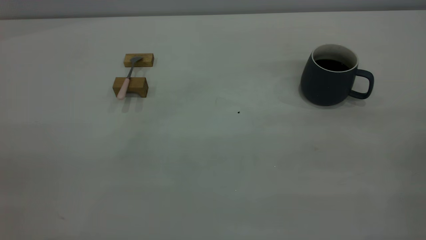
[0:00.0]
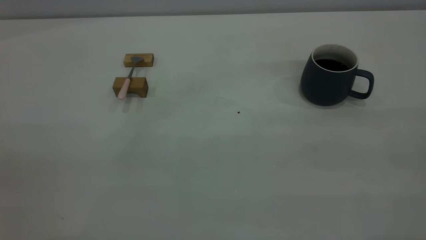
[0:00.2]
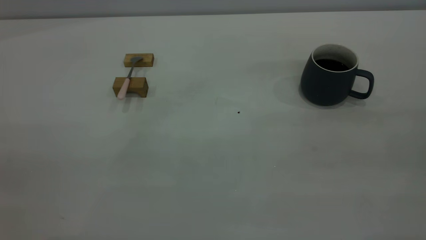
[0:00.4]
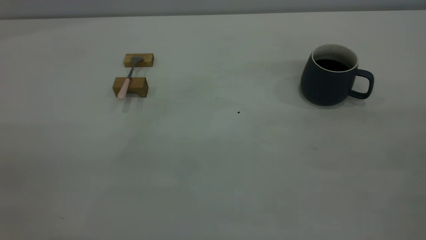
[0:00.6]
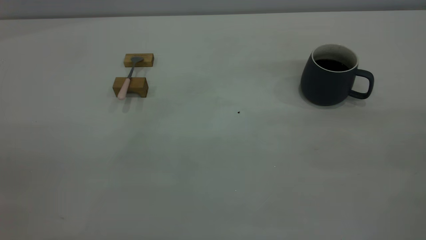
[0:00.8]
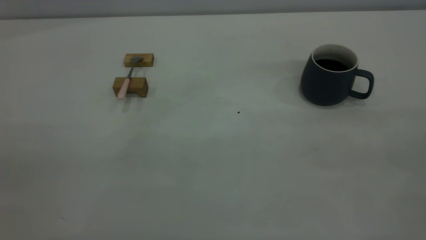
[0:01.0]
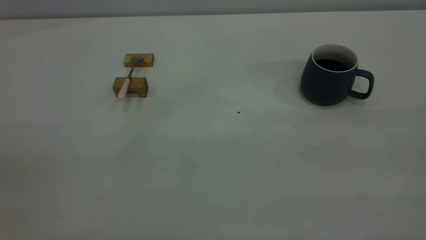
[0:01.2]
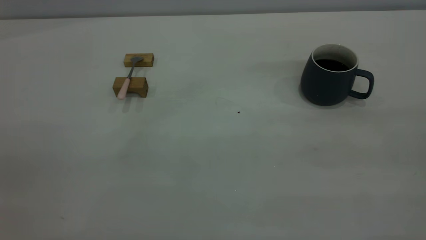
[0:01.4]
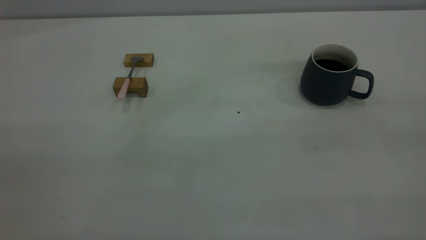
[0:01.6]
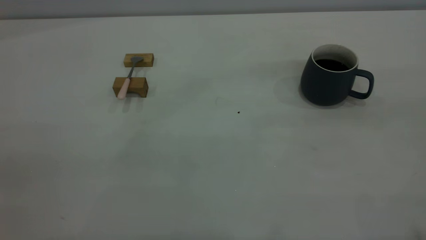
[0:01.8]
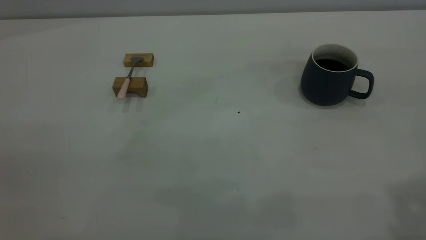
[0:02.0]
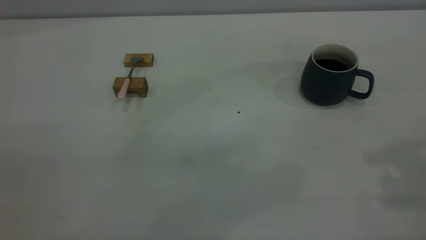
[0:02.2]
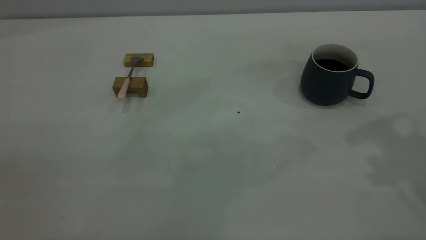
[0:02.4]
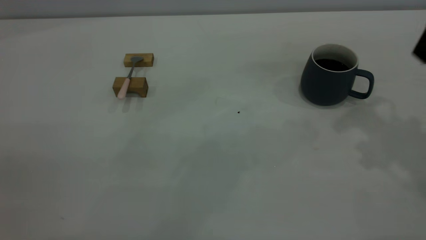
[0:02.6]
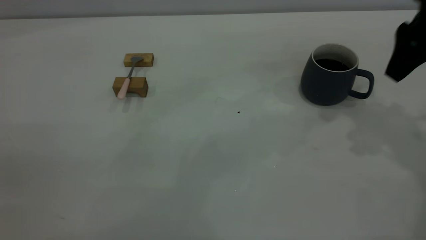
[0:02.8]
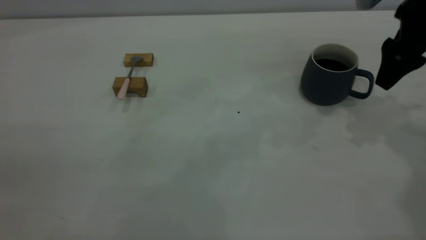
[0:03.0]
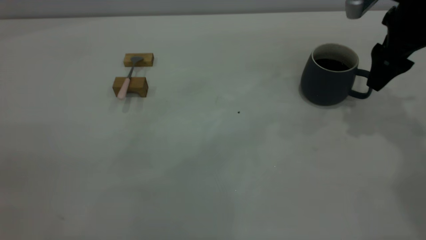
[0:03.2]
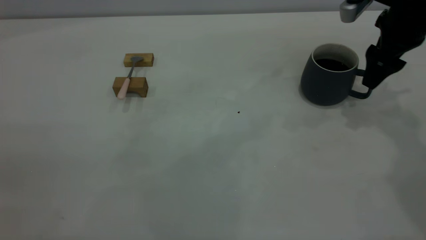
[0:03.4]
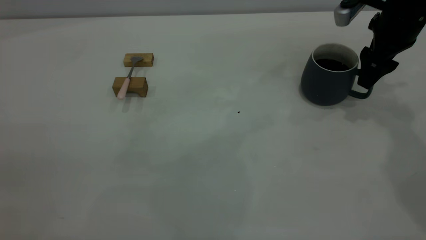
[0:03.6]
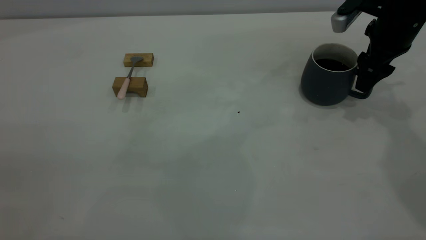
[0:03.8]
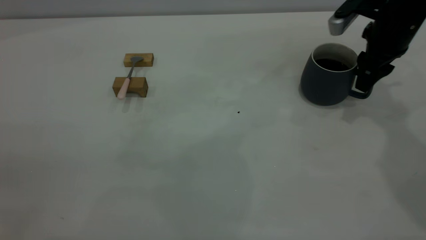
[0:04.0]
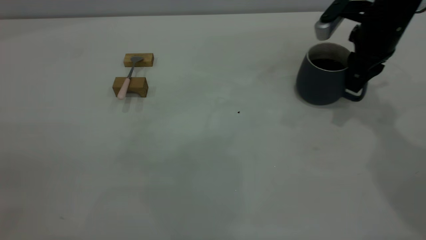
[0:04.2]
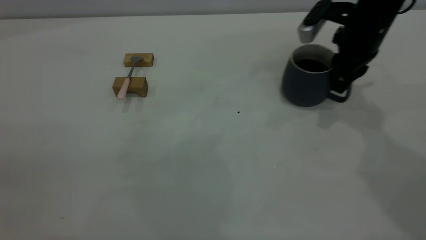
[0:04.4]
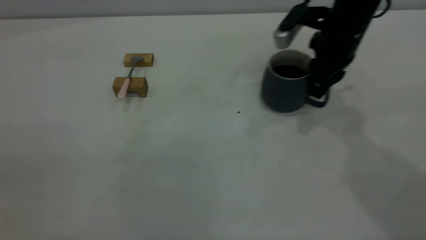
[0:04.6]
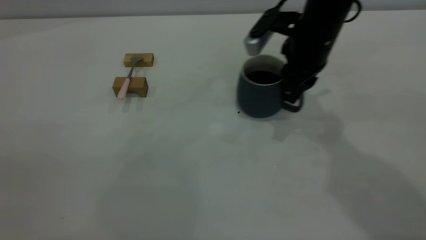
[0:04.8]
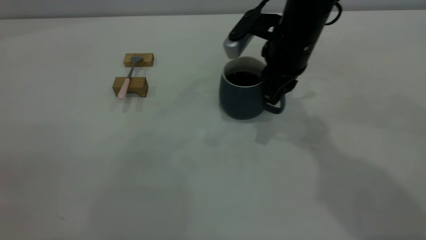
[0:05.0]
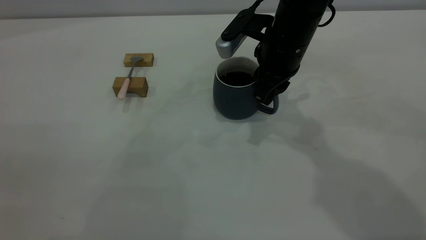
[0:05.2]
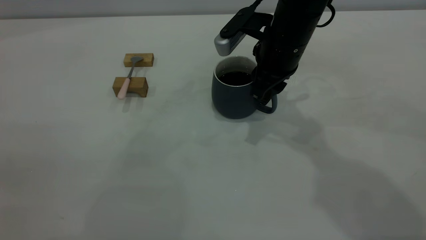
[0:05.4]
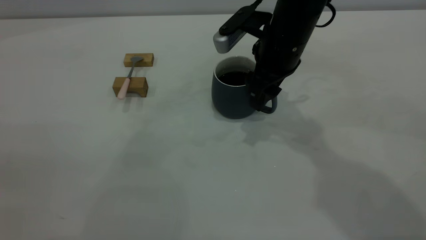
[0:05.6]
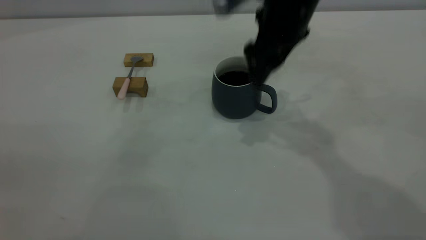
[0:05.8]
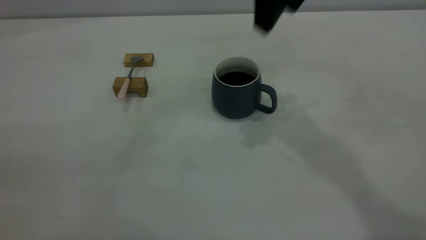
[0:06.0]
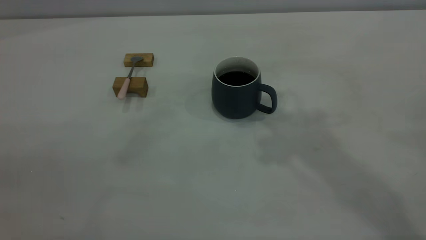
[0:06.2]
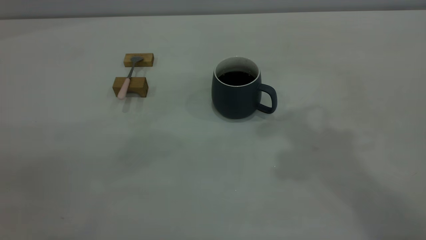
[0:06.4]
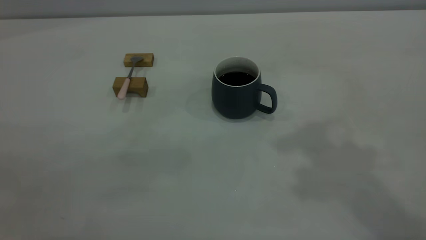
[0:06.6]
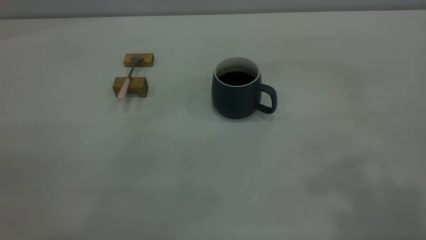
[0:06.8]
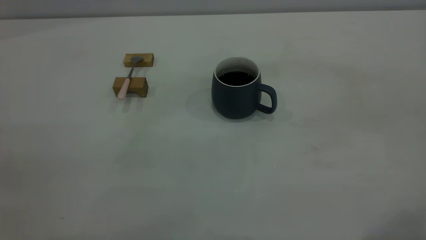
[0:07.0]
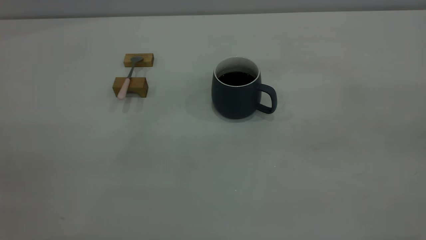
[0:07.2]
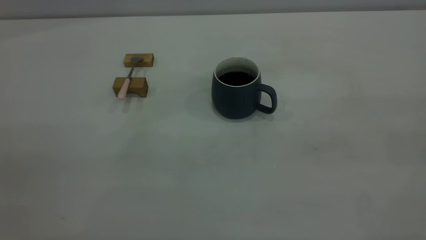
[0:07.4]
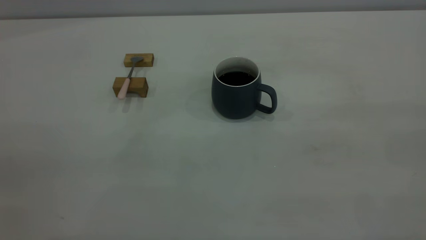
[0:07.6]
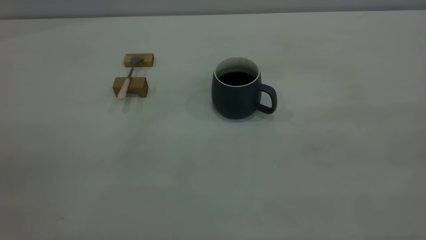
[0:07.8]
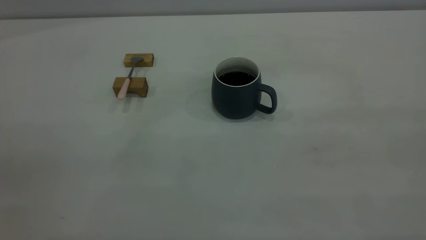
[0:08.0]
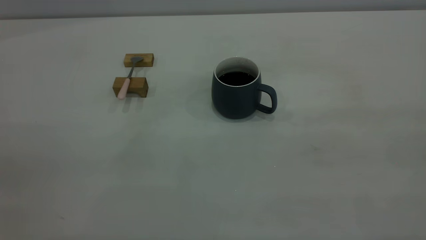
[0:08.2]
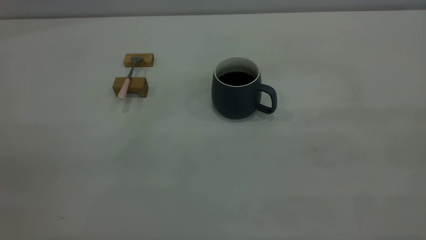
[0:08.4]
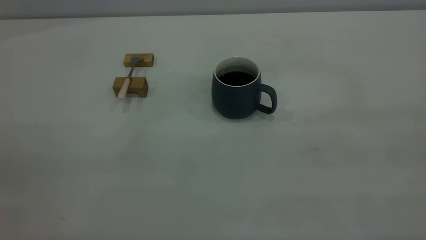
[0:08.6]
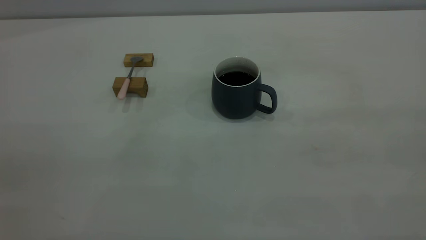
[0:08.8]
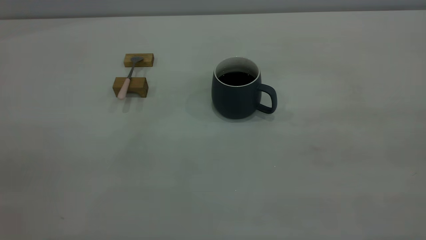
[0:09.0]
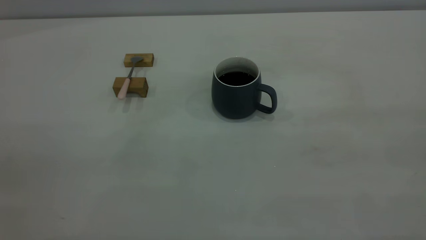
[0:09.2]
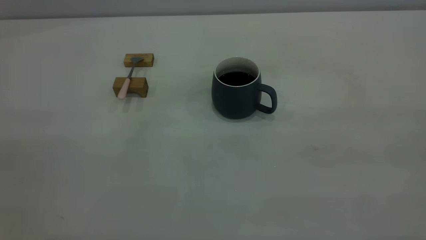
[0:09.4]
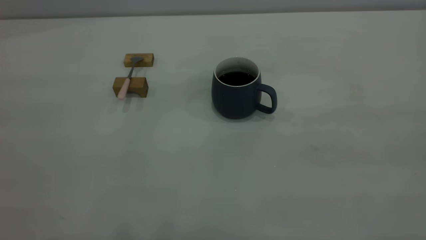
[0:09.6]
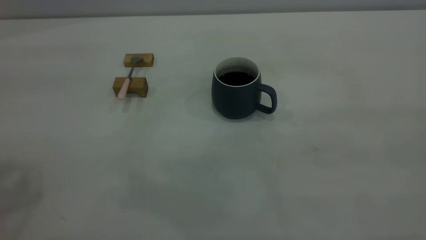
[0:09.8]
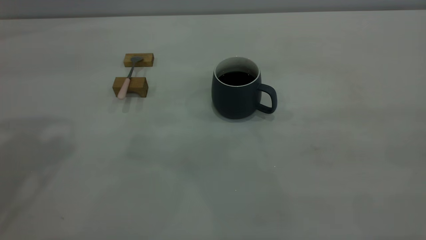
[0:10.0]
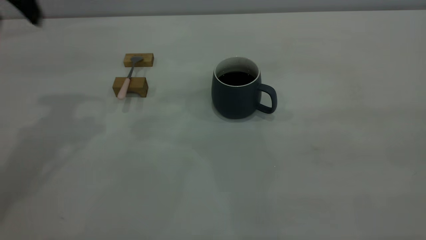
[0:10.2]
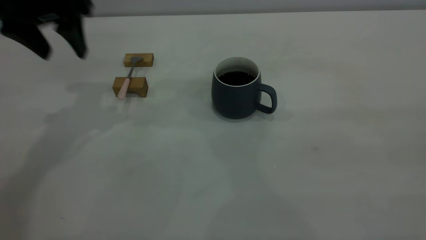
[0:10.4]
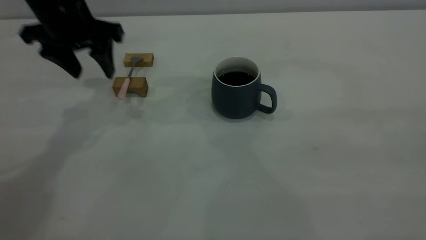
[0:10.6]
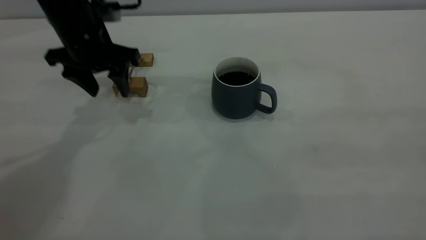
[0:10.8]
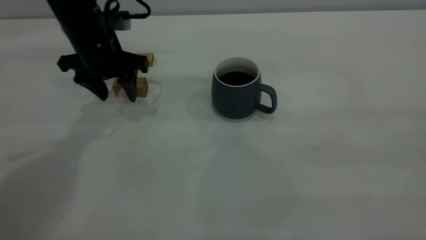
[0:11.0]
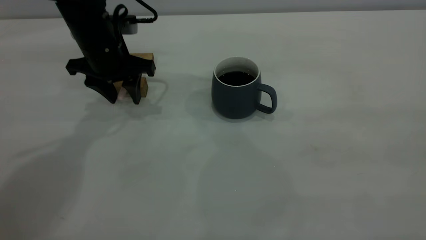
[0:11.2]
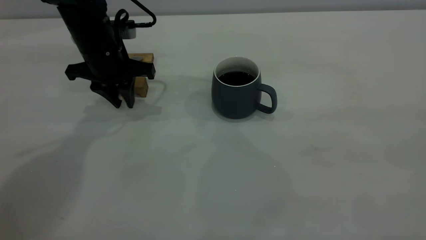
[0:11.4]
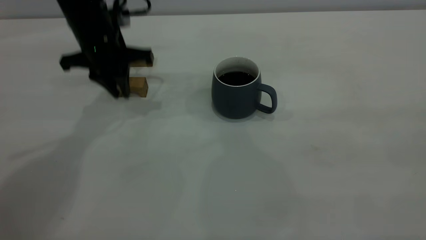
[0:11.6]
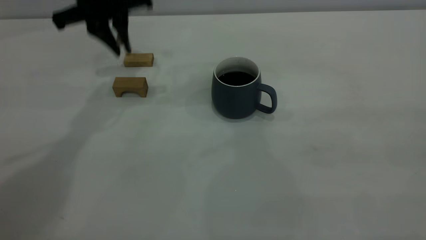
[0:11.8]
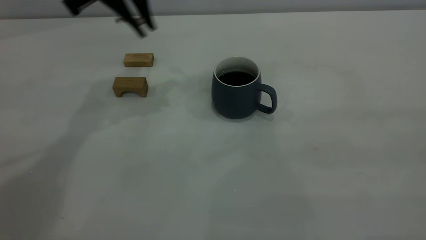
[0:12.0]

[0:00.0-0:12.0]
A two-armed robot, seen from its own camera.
Step, 0:00.0 to 0:05.8: Move the cup with coffee to the center of view.
Step, 0:06.0 to 0:11.6: Pick up the spoon.
0:01.6 to 0:03.0: The right gripper is displaced forward and downward by about 40 cm.
0:03.0 to 0:04.4: The right gripper heads to the left and downward, covering approximately 10 cm, and closes up.
0:04.4 to 0:06.0: The right gripper travels upward and to the left by about 20 cm, and opens.
0:06.0 to 0:07.6: The right gripper shifts some 40 cm backward and to the right.
0:09.0 to 0:10.4: The left gripper heads forward, covering roughly 40 cm.
0:10.4 to 0:12.0: The left gripper moves to the right, roughly 10 cm, travels downward and back again, some 10 cm each way, and closes its fingers.

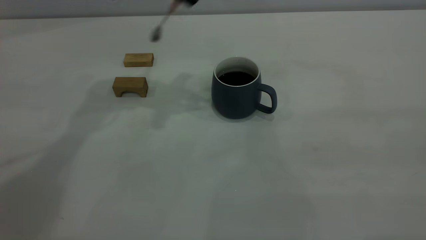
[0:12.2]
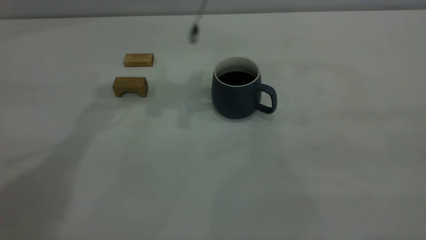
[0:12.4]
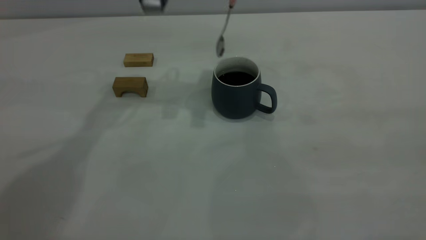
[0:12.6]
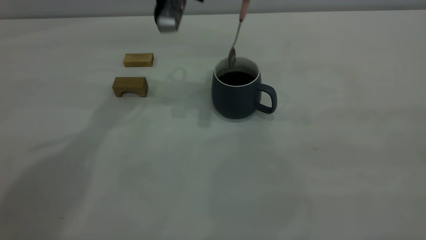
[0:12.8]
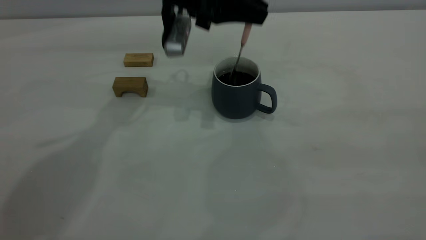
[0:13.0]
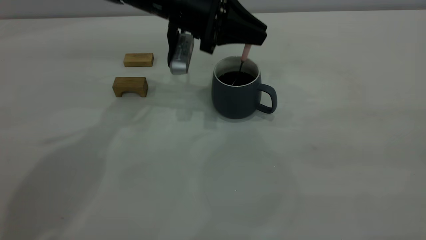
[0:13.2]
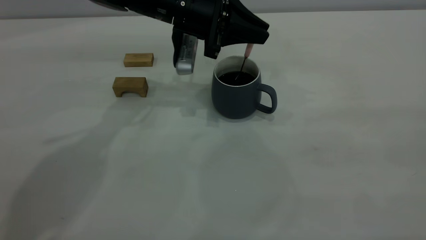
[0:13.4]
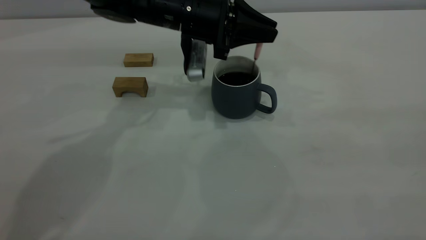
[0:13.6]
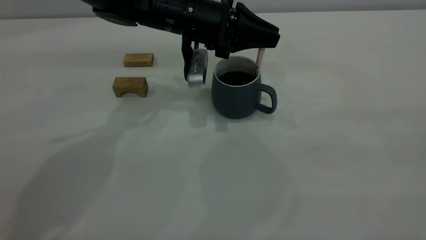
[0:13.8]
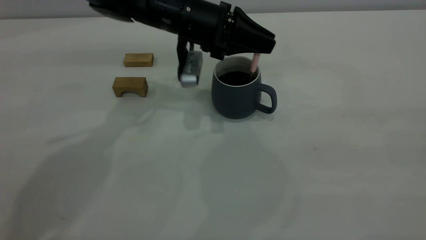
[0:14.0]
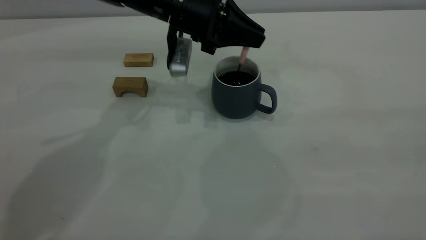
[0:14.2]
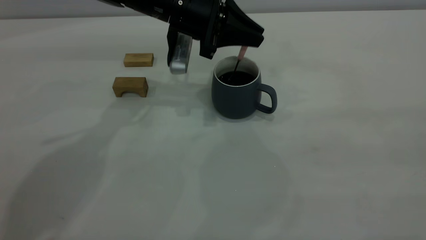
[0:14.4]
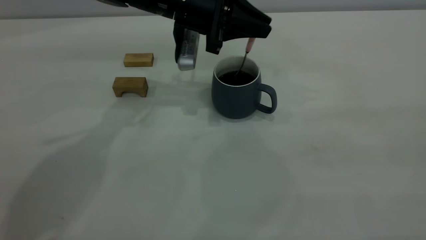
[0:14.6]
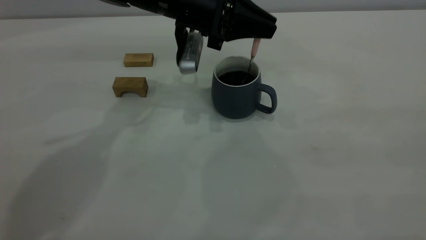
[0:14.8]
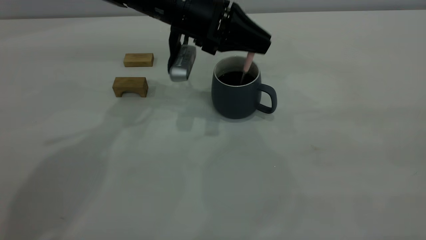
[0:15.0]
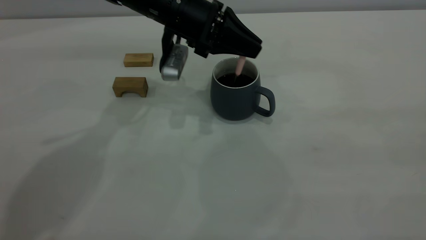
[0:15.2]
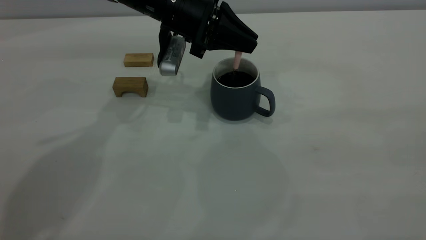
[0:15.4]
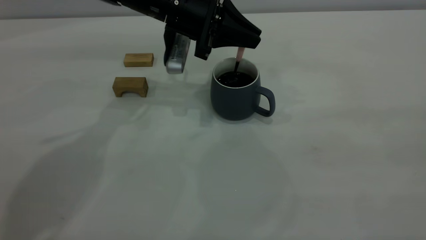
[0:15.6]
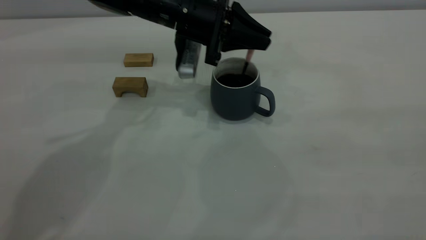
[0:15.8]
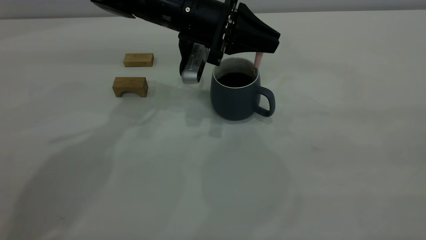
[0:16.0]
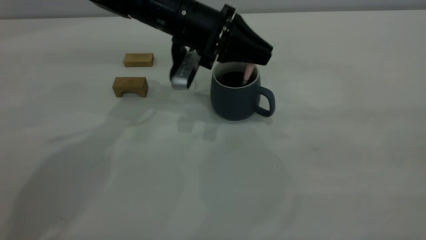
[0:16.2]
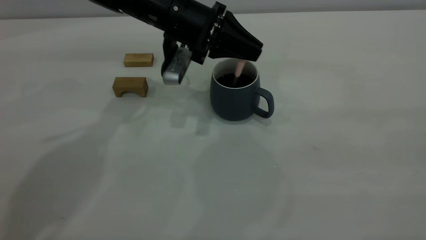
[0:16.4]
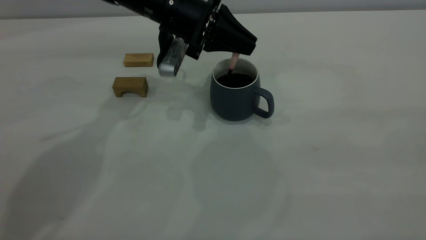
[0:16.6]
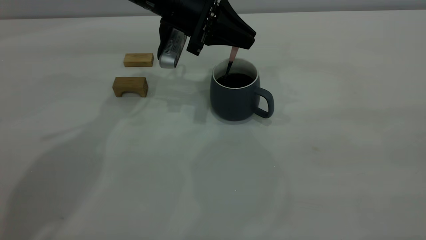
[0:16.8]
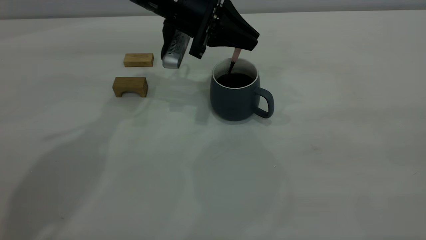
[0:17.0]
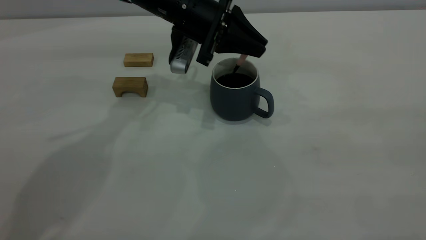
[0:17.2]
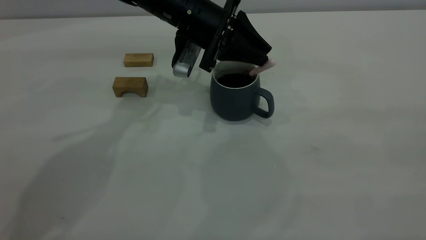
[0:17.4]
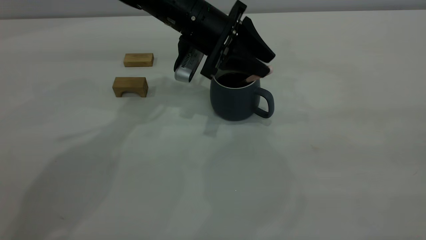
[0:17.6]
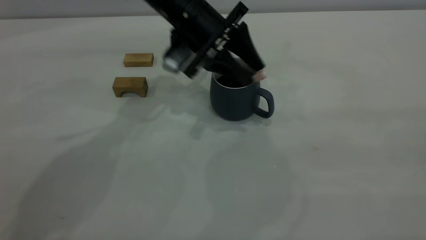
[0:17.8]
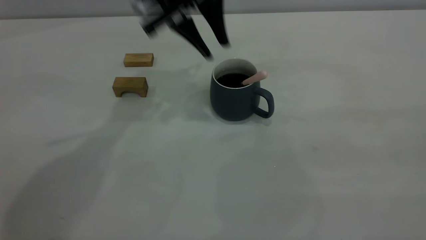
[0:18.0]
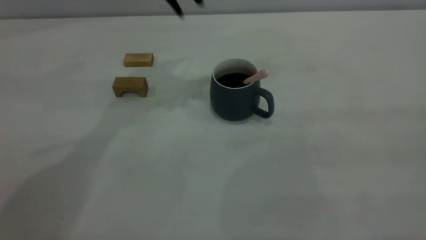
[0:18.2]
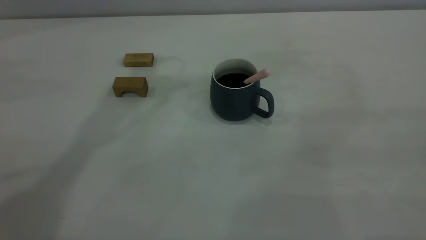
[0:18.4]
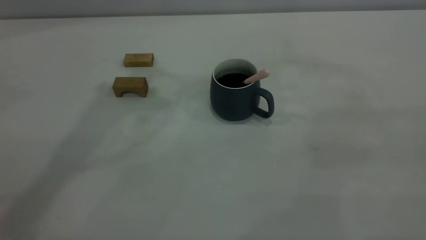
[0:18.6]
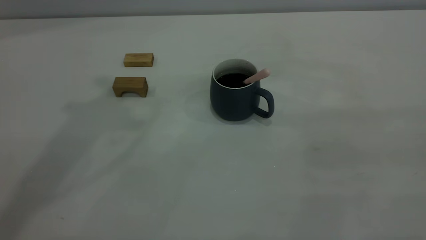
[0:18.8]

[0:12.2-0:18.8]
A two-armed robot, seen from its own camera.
Step, 0:12.2 to 0:18.0: Stir the coffee in the cup.
0:12.2 to 0:13.8: The left gripper heads downward, covering approximately 15 cm.
0:13.8 to 0:15.4: There are only small adjustments of the grippers.
0:15.4 to 0:17.2: The grippers move only a little.
0:17.2 to 0:18.8: The left gripper goes approximately 35 cm upward and to the left, and opens up.
